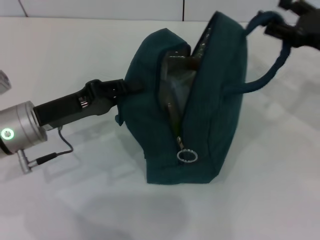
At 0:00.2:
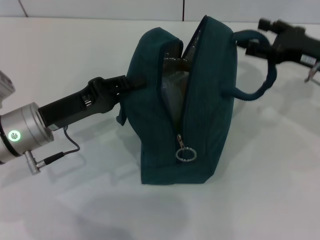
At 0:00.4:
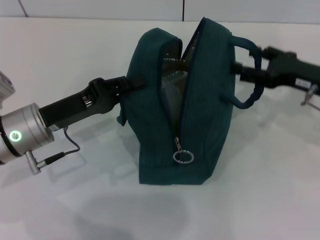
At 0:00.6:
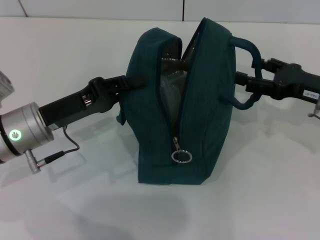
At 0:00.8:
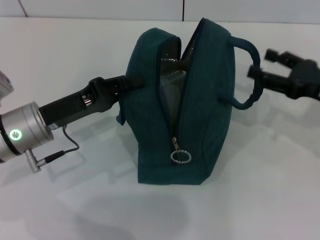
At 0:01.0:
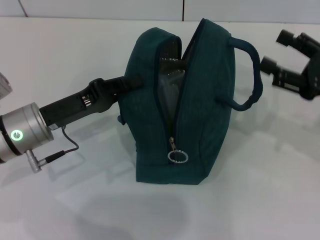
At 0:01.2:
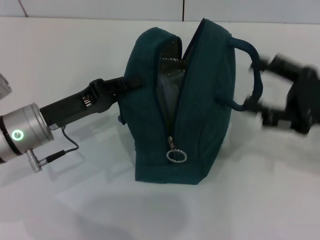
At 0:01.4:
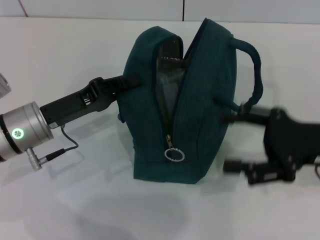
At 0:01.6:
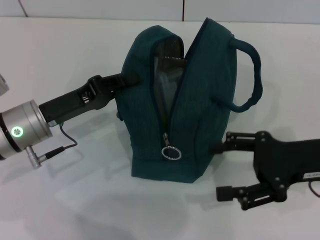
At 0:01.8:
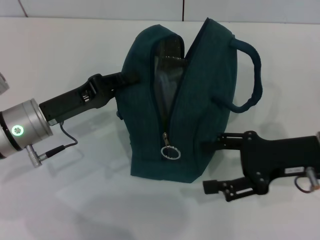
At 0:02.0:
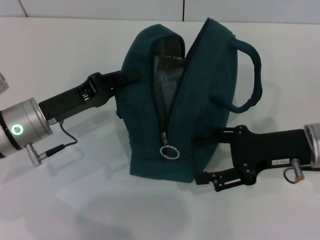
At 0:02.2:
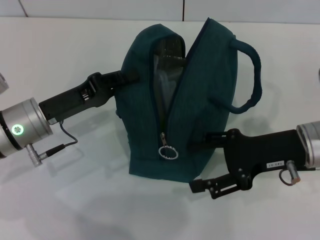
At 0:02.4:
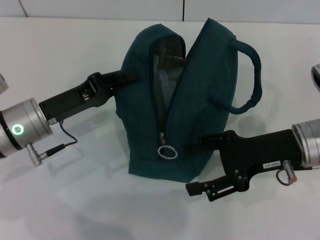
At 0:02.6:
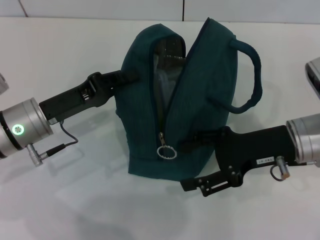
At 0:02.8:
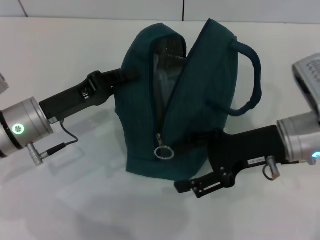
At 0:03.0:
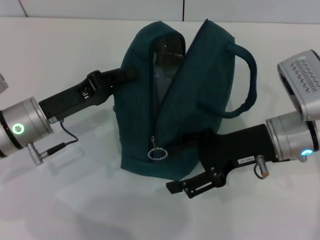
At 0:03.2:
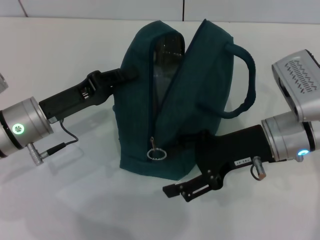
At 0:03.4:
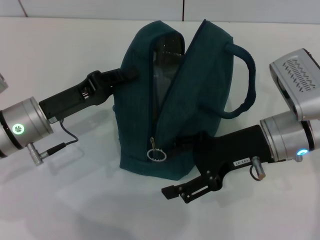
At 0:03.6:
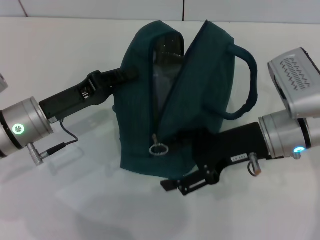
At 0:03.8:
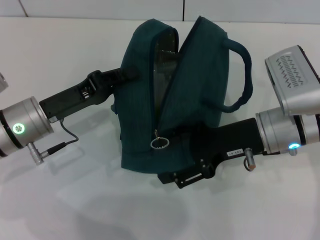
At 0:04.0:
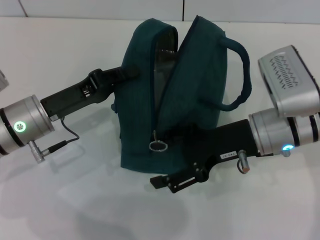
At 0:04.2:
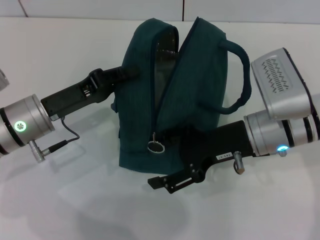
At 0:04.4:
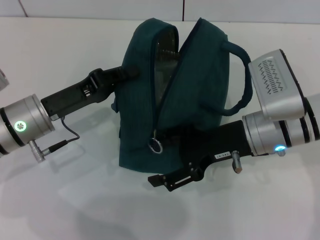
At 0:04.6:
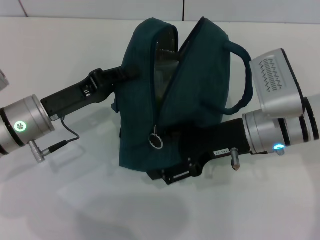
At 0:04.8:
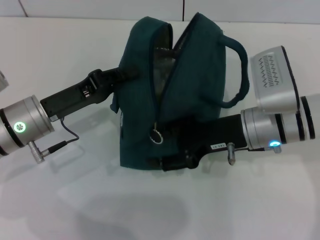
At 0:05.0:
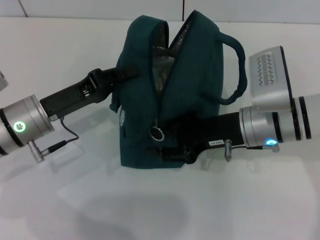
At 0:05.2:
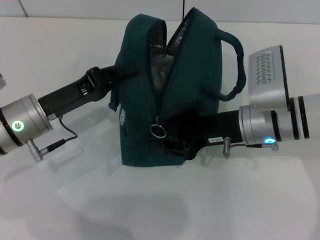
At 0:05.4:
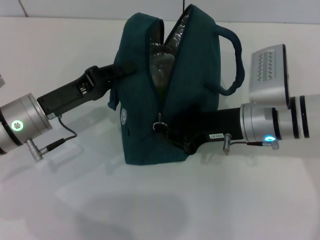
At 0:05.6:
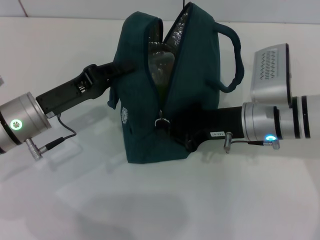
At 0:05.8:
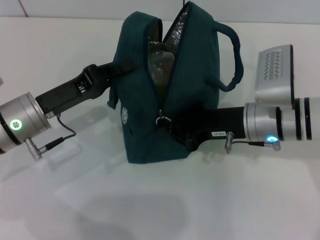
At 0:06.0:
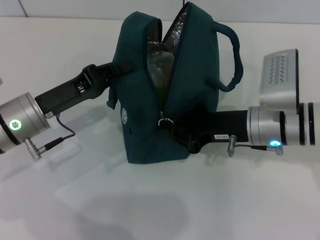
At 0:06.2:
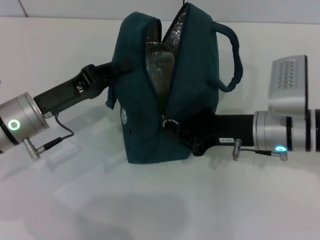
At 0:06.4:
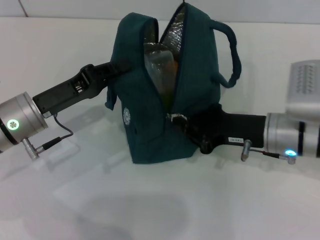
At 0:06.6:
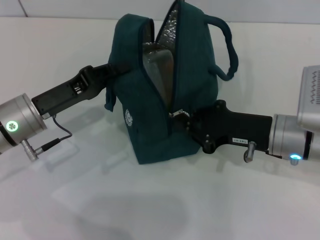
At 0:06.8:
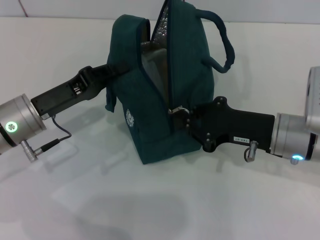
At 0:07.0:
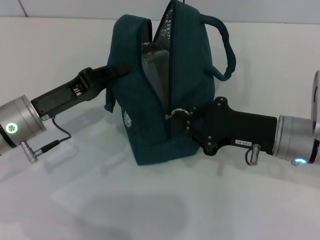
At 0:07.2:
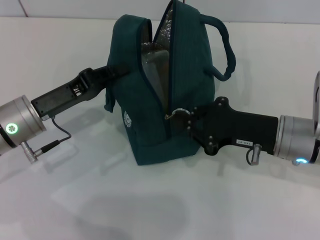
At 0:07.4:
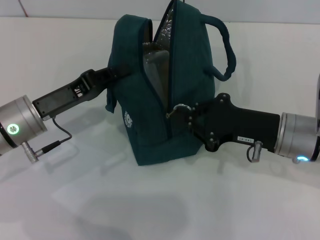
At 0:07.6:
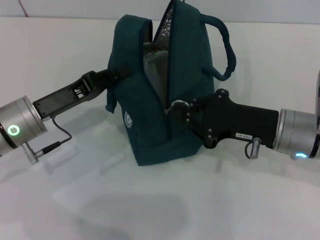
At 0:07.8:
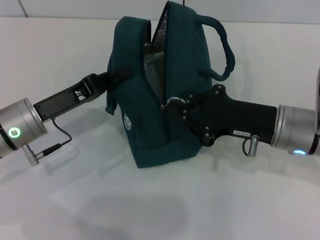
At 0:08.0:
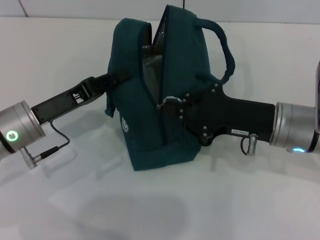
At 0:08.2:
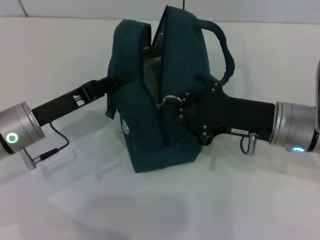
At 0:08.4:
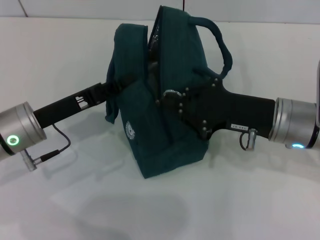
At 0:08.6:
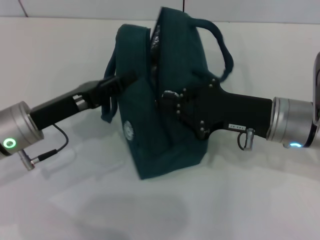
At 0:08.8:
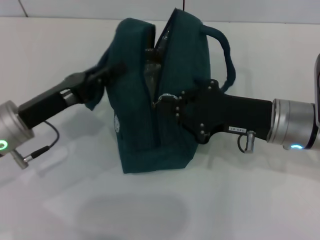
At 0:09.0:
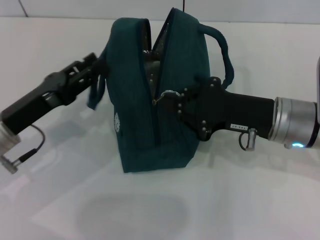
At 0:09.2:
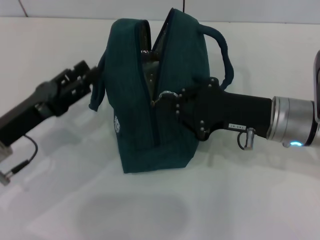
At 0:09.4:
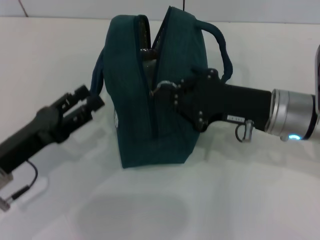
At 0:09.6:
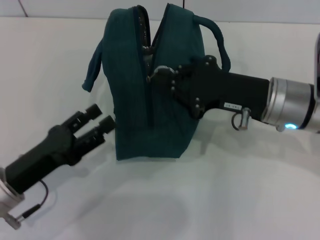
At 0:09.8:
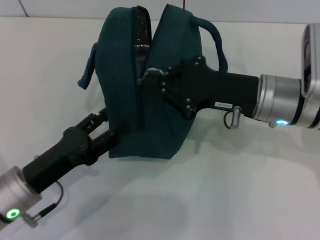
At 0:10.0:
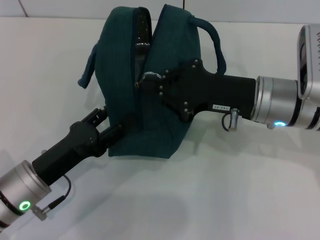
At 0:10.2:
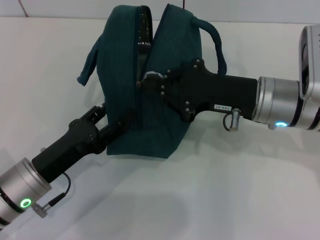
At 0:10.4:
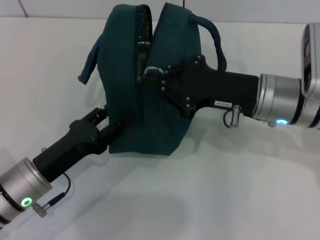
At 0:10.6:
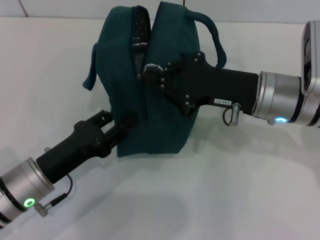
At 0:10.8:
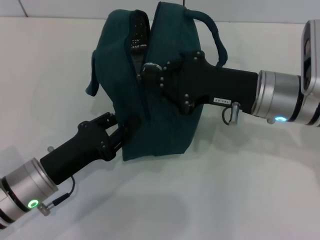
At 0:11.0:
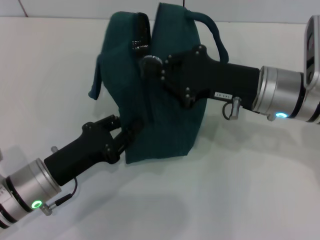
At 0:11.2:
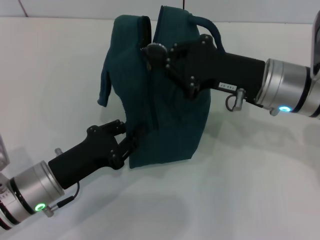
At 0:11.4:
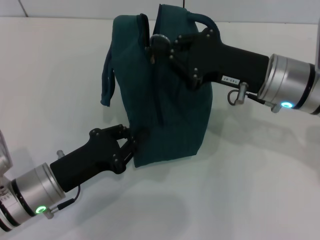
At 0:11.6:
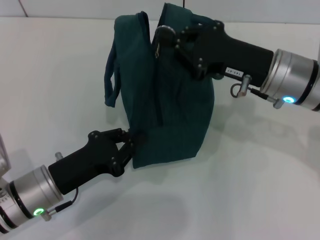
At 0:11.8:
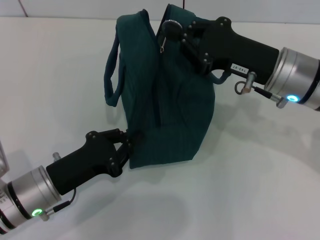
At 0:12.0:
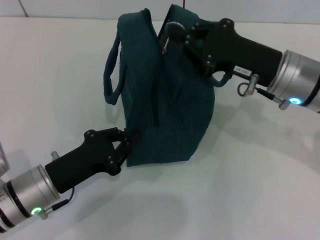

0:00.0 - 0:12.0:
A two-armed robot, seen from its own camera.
Step, 0:00.8 - 0:09.4: Hold the lunch bag with your left hand.
0:00.0 - 0:01.6: The right gripper is displaced backward by roughly 10 cm.
0:01.6 - 0:03.0: The right gripper shifts about 5 cm to the left.
0:03.0 - 0:04.4: The grippers stay close to where they were, moving slightly.
0:04.4 - 0:06.0: The right gripper closes.
0:06.0 - 0:07.6: The grippers move only a little.
0:07.6 - 0:09.0: The left gripper opens up.
0:09.0 - 0:10.4: The left gripper moves downward, roughly 5 cm, and opens up.
0:10.4 - 0:12.0: The left gripper closes up.

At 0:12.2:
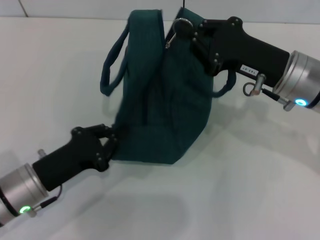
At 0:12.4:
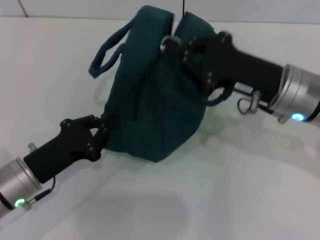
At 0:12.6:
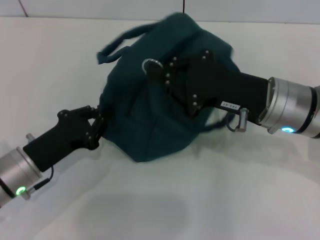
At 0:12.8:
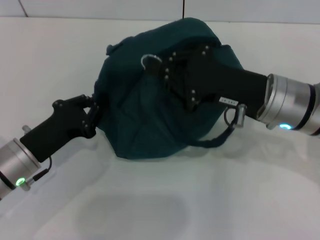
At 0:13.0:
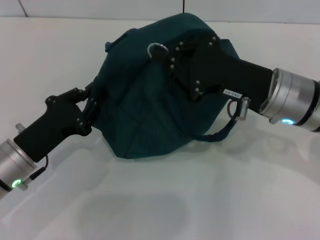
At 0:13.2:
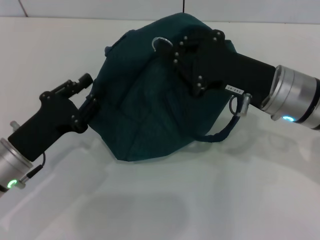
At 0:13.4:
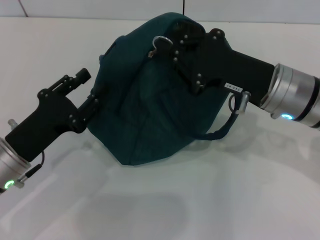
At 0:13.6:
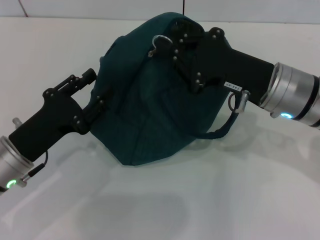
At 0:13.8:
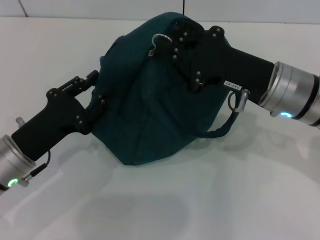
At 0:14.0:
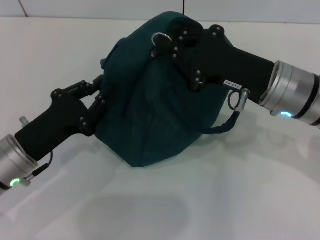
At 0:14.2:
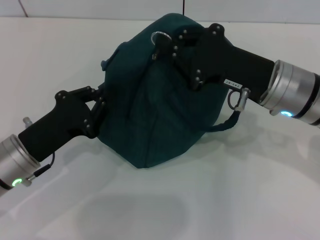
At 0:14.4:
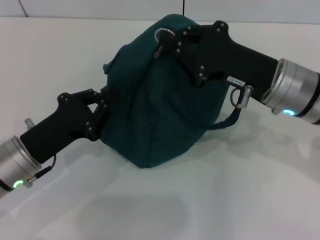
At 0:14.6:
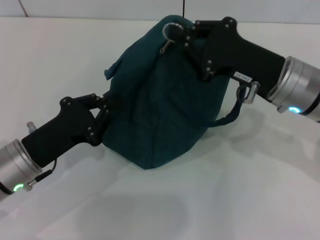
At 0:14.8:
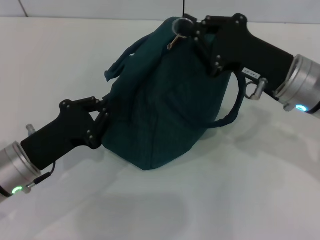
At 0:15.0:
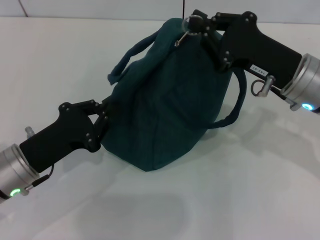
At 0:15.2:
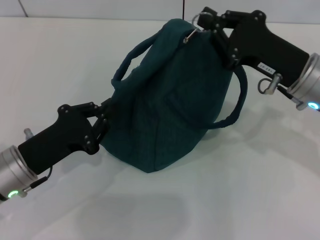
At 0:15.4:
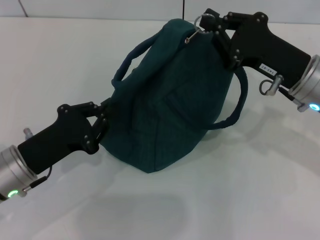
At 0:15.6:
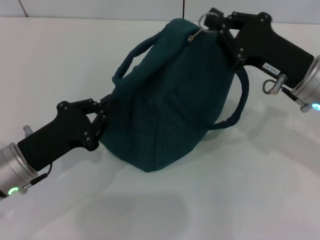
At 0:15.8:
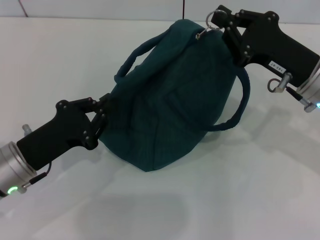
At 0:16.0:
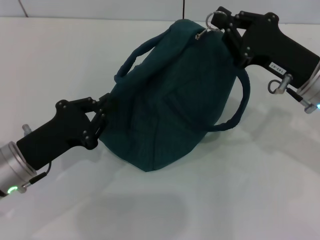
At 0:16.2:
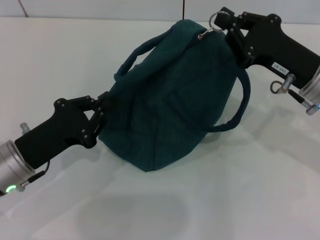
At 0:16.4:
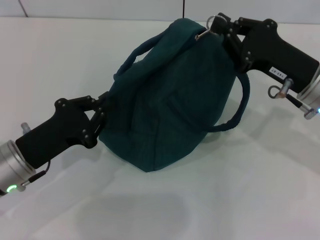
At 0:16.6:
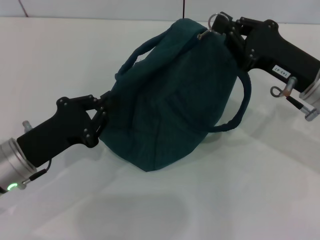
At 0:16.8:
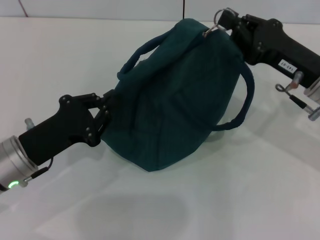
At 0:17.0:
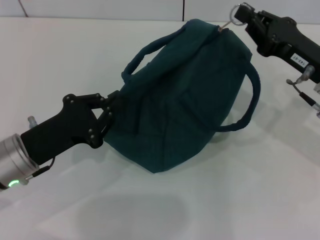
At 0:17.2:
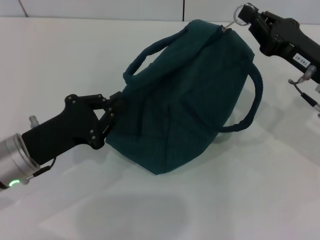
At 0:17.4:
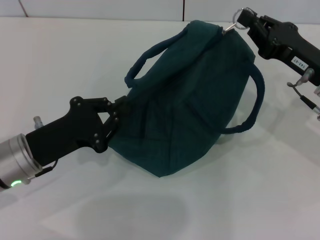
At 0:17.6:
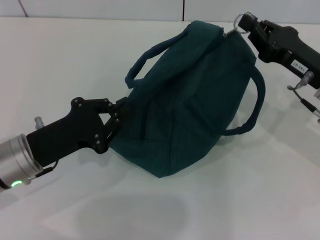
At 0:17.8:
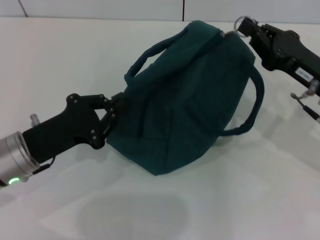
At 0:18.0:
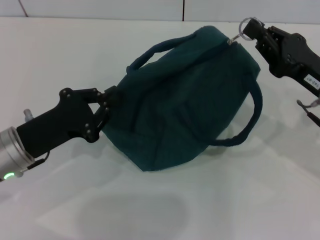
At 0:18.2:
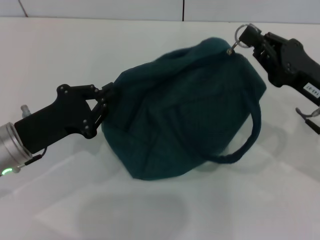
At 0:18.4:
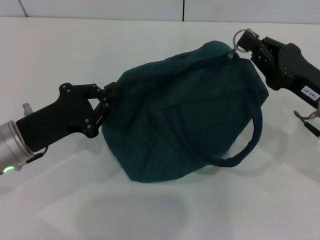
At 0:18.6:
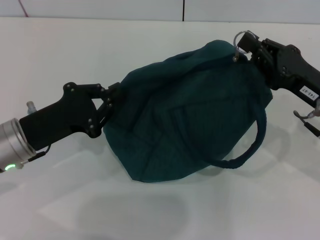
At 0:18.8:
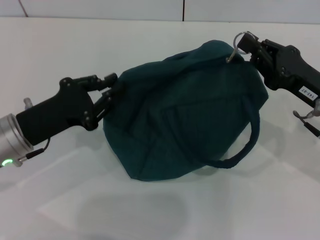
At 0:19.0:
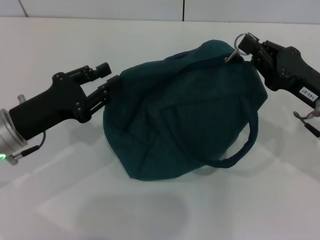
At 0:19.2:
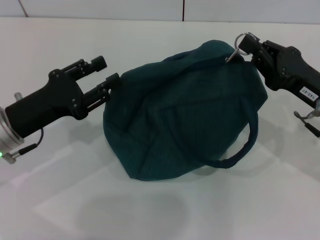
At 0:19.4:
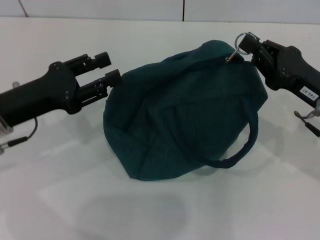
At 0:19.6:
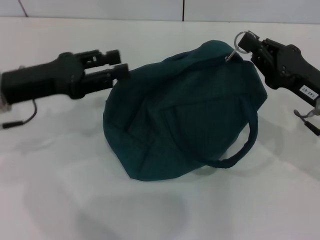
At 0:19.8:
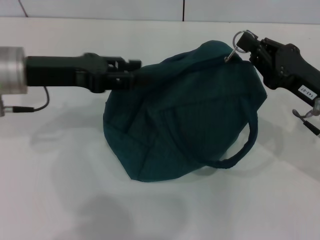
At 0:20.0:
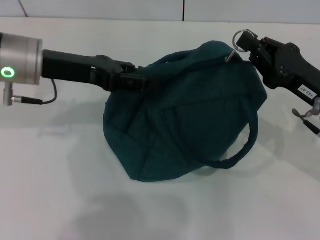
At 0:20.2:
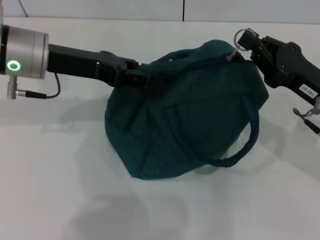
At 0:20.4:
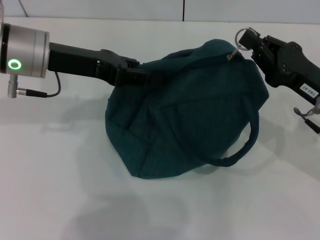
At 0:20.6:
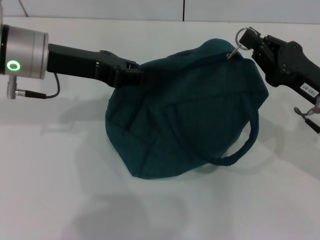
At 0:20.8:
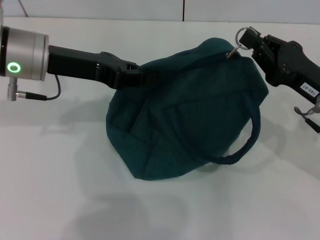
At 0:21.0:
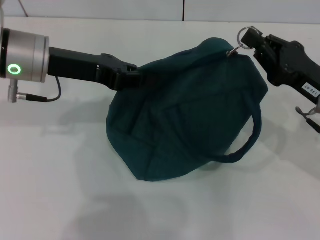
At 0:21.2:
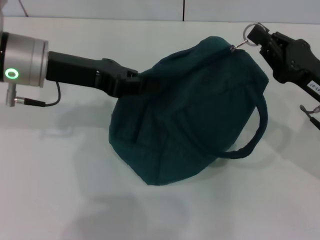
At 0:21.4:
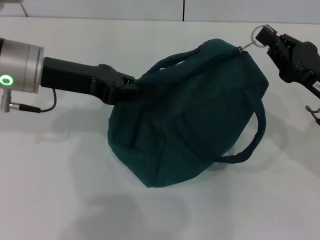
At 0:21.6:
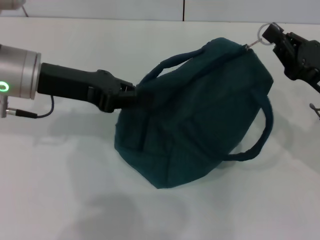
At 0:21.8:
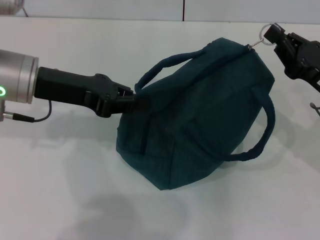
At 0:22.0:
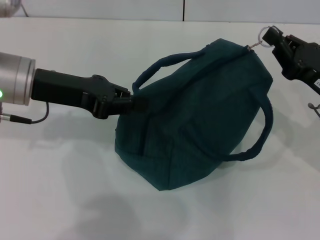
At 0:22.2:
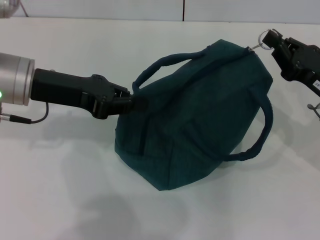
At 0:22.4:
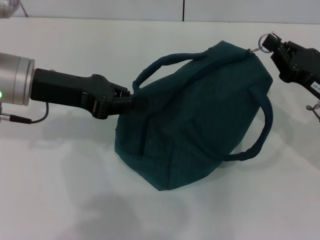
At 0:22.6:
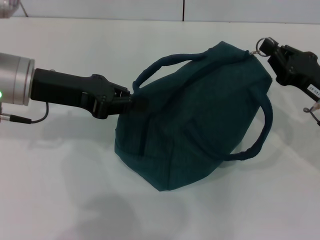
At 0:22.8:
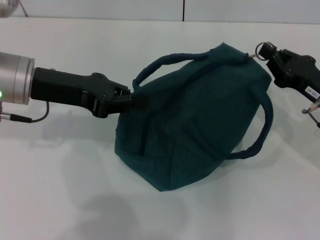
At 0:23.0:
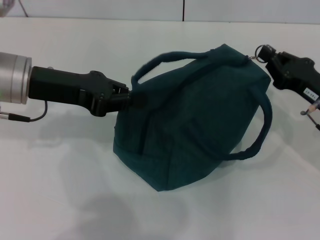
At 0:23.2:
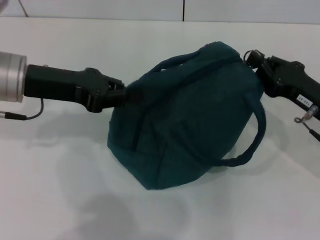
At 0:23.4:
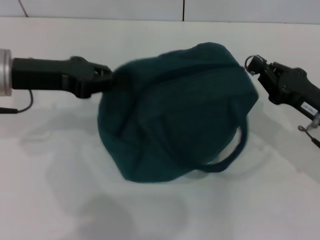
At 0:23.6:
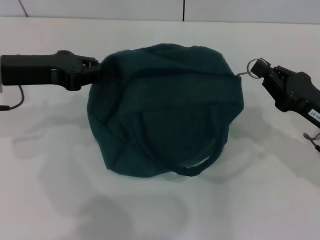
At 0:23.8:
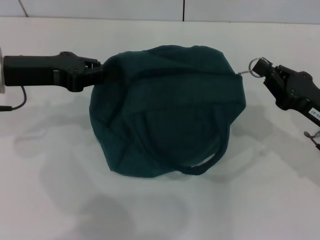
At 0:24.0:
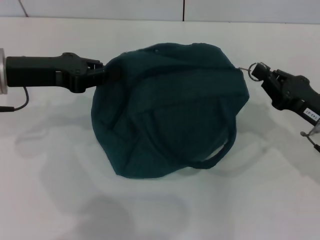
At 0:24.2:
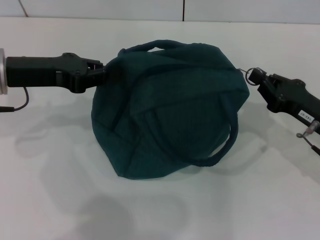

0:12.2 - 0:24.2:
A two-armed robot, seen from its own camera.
0:12.2 - 0:13.8: The left gripper opens up.
0:13.8 - 0:15.2: The left gripper closes its fingers.
0:15.2 - 0:16.6: There are only small adjustments of the grippers.
0:16.6 - 0:18.2: There are only small adjustments of the grippers.
0:18.2 - 0:19.8: The left gripper moves upward and forward, approximately 10 cm, and opens.
0:19.8 - 0:21.2: The left gripper closes its fingers.
0:21.2 - 0:22.6: The grippers move only a little.
